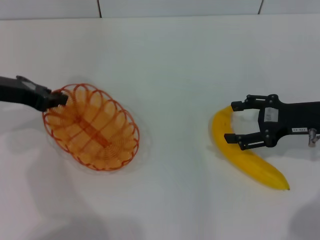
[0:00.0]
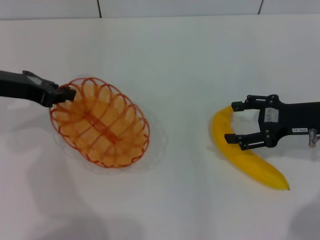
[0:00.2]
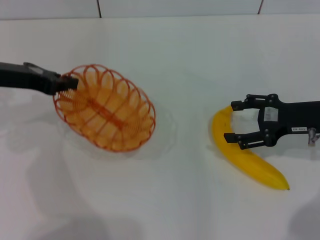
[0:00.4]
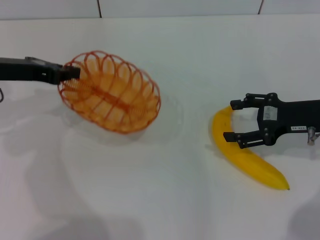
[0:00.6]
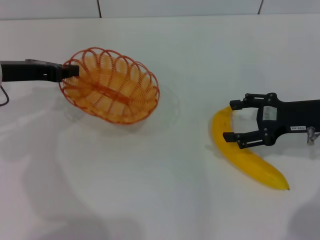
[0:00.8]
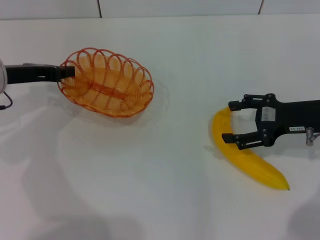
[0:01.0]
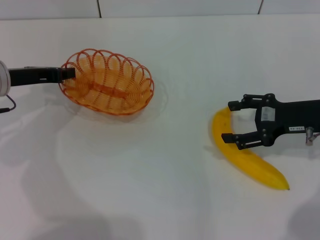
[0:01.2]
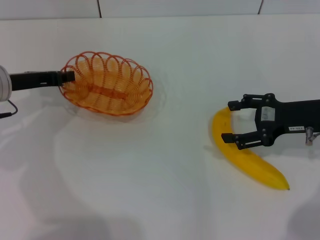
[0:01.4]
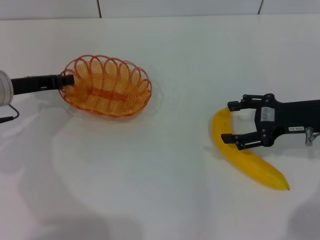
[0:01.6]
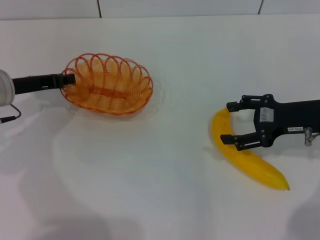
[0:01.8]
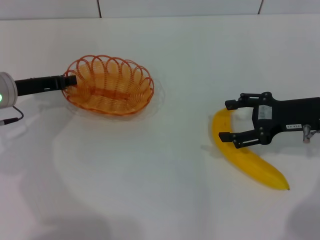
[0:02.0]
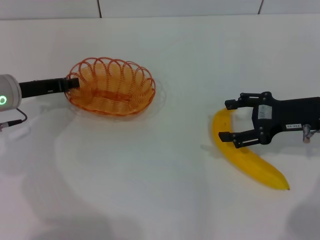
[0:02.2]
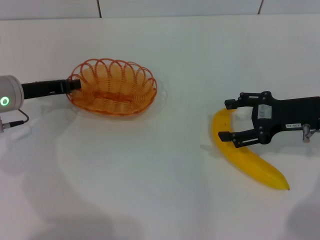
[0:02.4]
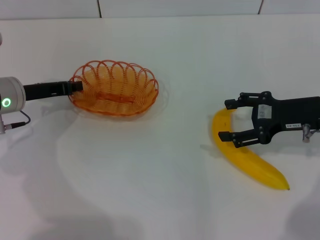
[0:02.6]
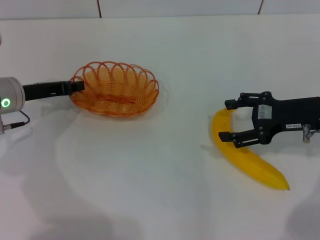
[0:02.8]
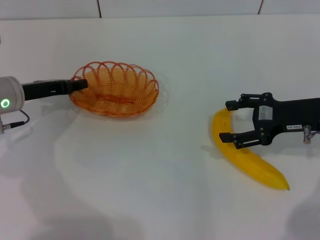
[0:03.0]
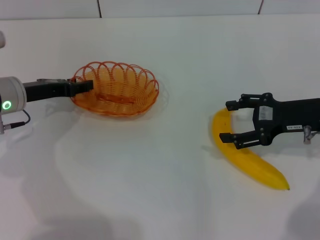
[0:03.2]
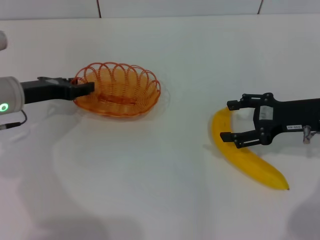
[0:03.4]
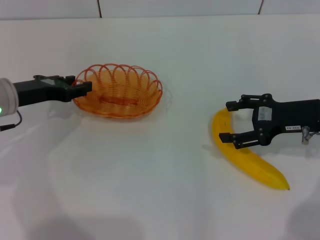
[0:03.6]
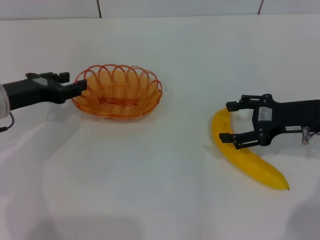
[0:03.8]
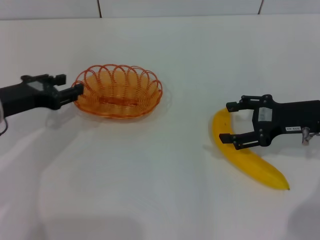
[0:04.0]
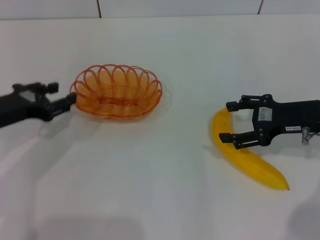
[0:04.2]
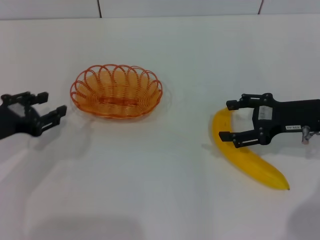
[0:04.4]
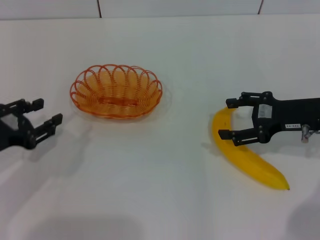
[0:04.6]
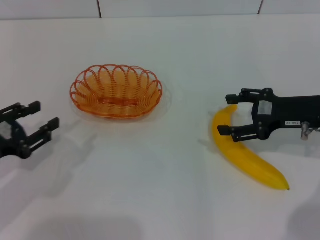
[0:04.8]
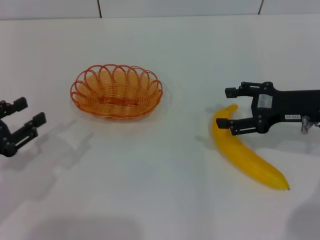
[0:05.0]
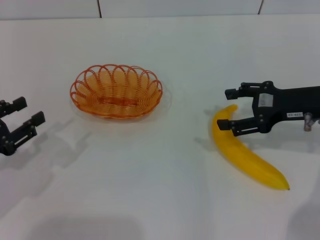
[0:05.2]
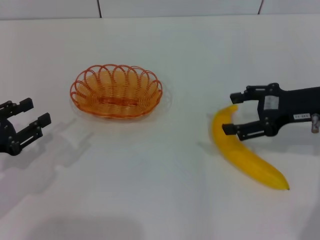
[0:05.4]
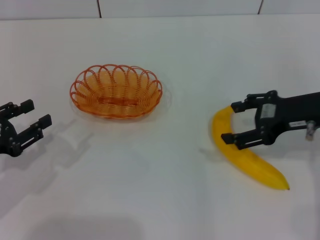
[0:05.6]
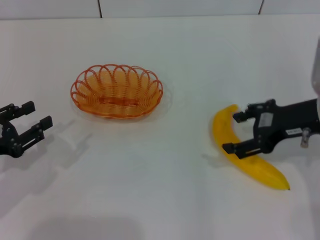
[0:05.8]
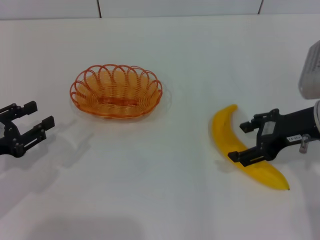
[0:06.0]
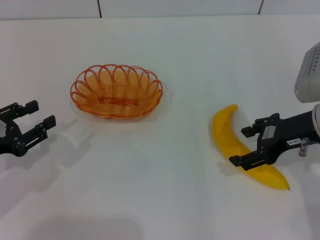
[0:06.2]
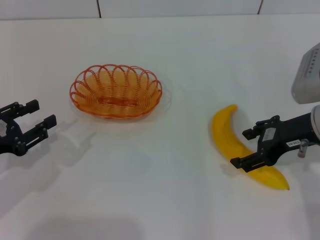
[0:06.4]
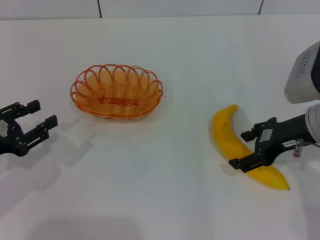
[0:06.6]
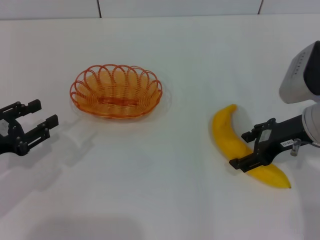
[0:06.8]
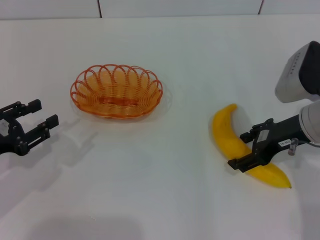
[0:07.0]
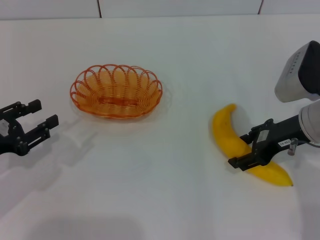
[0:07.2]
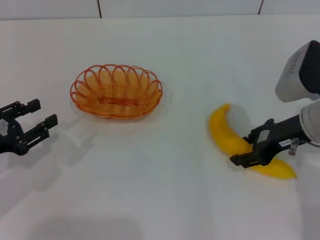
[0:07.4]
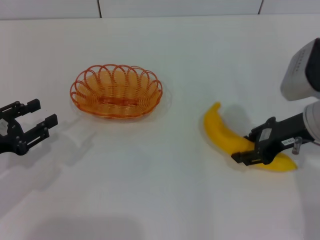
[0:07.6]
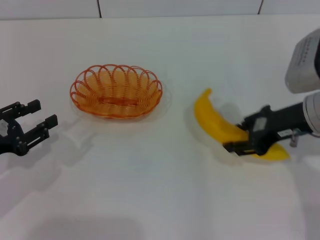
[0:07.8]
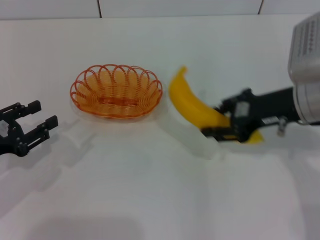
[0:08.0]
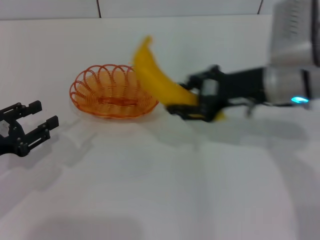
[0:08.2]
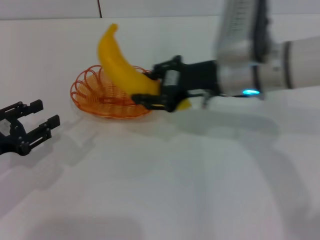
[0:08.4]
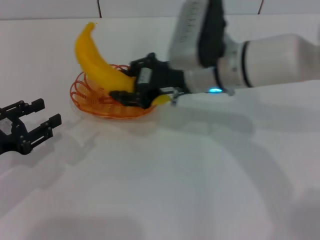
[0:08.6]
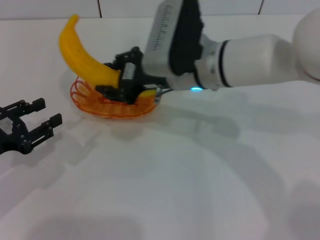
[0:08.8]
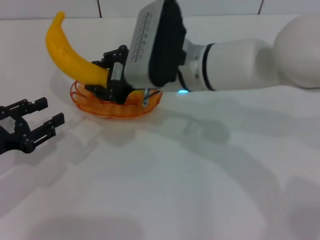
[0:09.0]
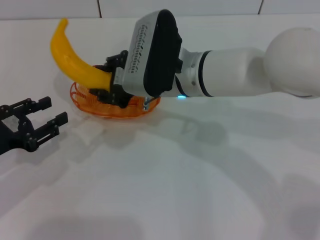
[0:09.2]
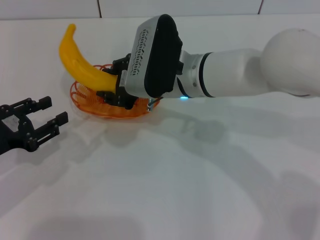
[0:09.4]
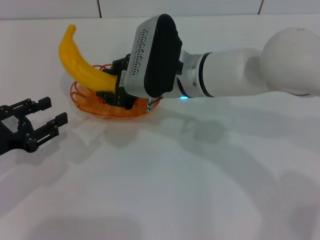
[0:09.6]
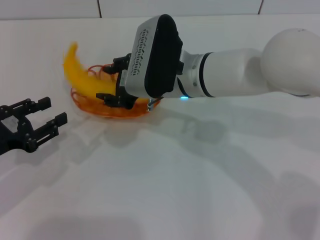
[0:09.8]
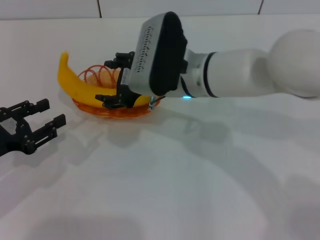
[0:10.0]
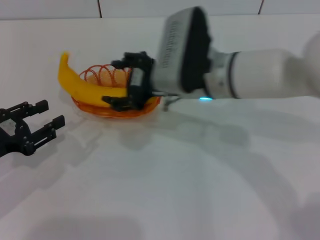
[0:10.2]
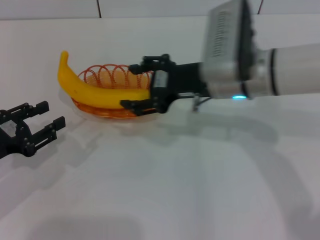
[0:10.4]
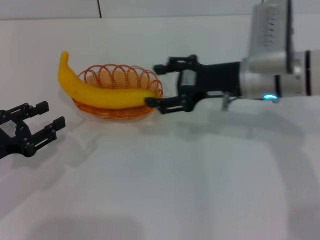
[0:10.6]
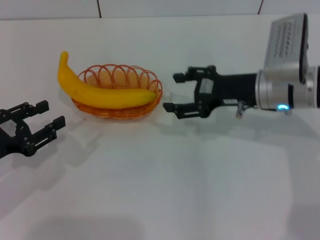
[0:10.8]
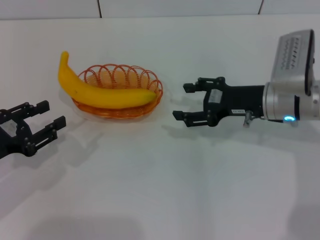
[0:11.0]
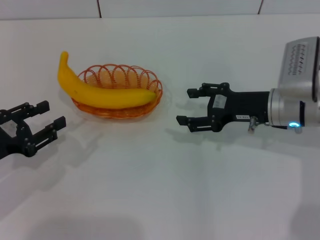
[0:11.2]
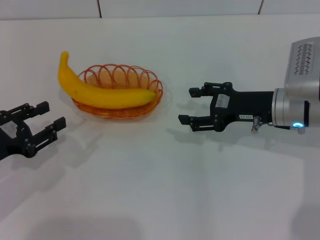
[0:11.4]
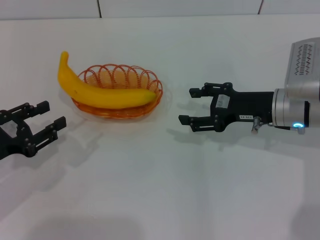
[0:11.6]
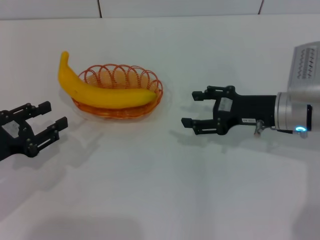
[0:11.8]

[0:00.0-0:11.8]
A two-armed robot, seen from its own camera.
Step, 0:00.2 to 0:04.0: Place the basket in the center of view with the left gripper.
Step, 0:04.2 to 0:07.8: Pick up the banana with the right gripper.
Step, 0:08.0 to 0:10.2: Place the banana into the basket with the right gripper.
0:00.0 to 0:01.4: The left gripper travels downward by about 5 cm.
0:01.4 to 0:03.0: The grippers move only a little.
0:03.0 to 0:04.4: The left gripper heads backward, covering approximately 10 cm, and opens its fingers.
0:04.4 to 0:06.0: The left gripper changes place by some 5 cm, while the right gripper changes place by some 5 cm.
0:06.0 to 0:07.4: The right gripper closes its fingers.
0:07.4 to 0:08.8: The right gripper is displaced to the left by about 15 cm, and closes.
0:08.8 to 0:10.4: The right gripper shifts about 5 cm to the right, and opens its fingers.
0:10.4 to 0:11.8: The right gripper is displaced to the right and downward by approximately 10 cm.

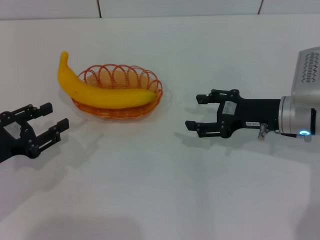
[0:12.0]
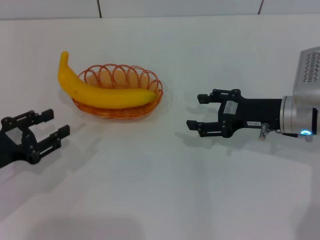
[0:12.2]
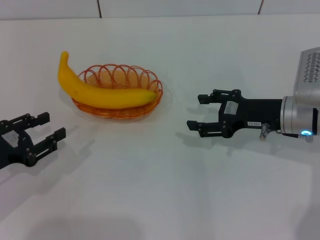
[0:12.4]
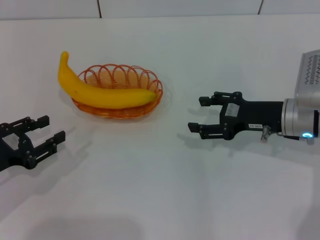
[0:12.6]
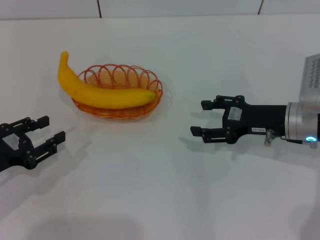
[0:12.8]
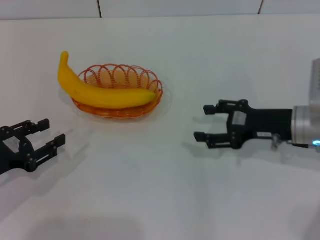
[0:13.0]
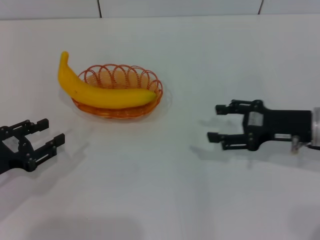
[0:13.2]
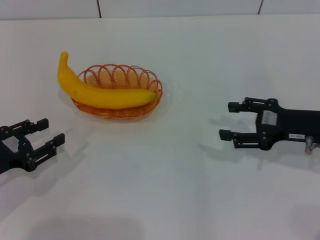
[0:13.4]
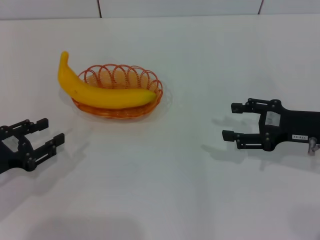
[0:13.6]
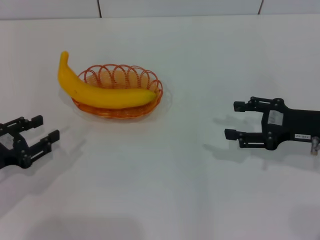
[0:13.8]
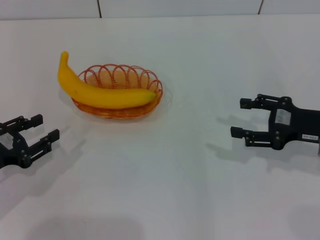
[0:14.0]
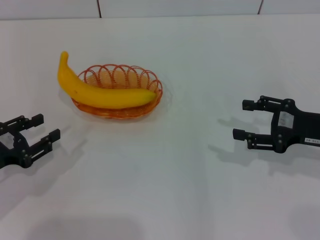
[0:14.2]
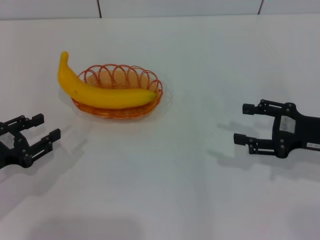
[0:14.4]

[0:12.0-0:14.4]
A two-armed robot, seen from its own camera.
0:12.0 to 0:13.2: The grippers move only a little.
0:13.2 to 0:14.4: The grippers move only a little.
